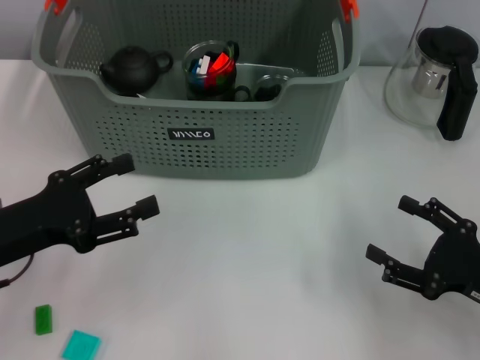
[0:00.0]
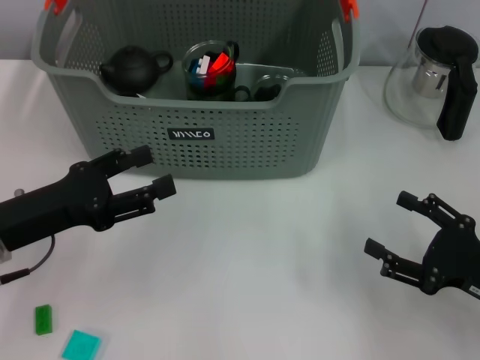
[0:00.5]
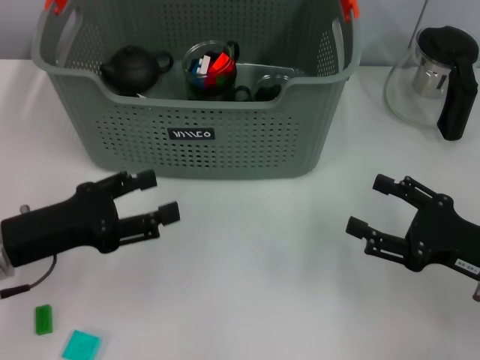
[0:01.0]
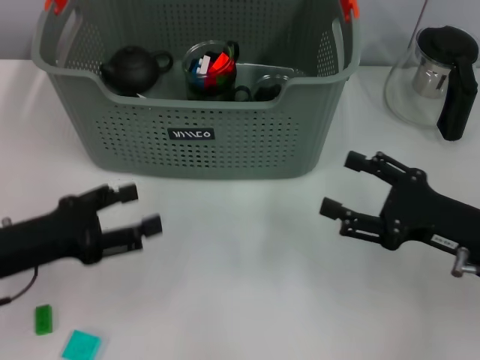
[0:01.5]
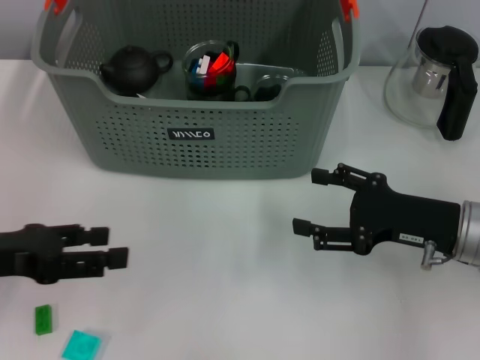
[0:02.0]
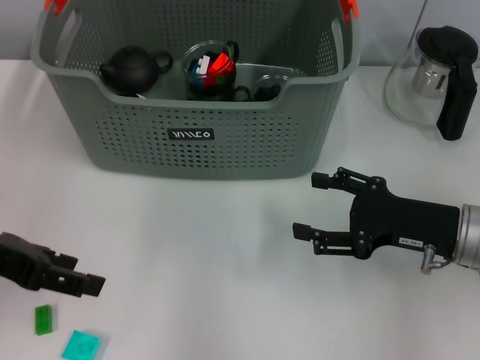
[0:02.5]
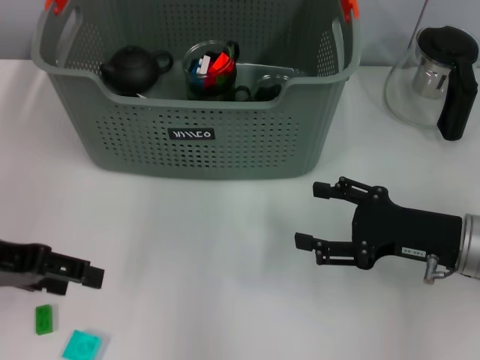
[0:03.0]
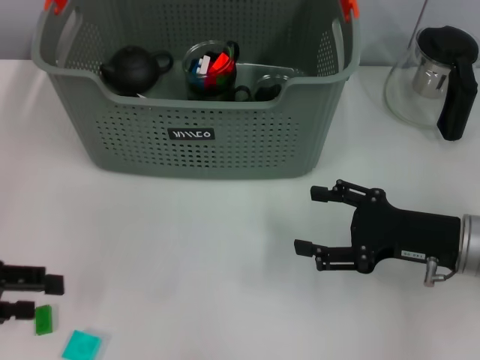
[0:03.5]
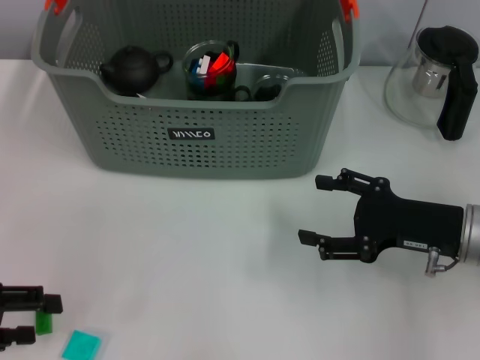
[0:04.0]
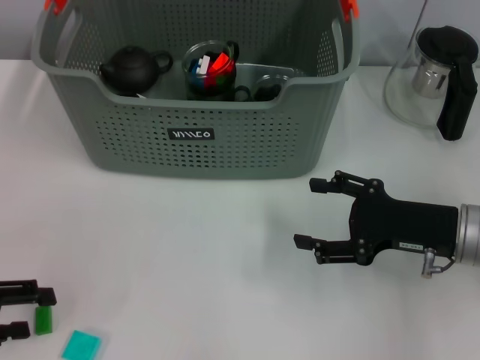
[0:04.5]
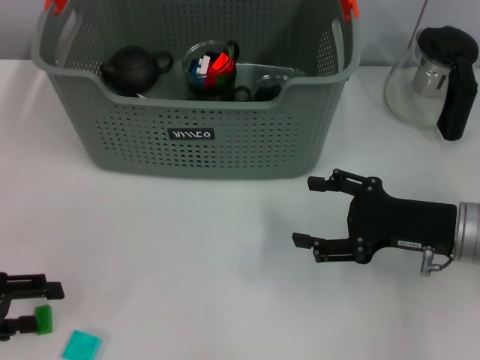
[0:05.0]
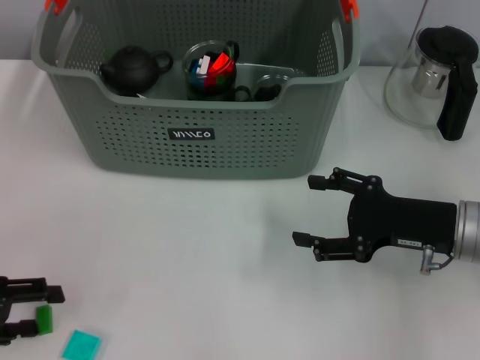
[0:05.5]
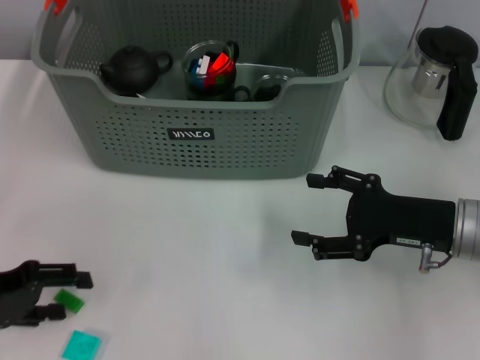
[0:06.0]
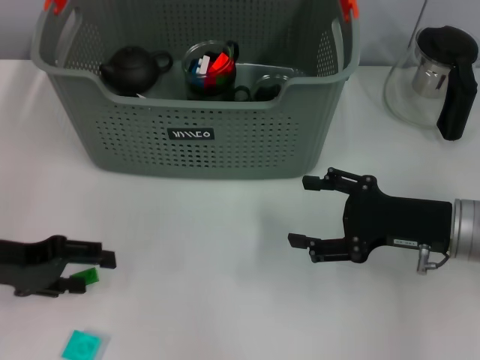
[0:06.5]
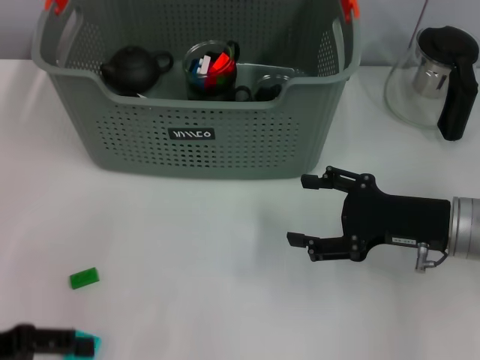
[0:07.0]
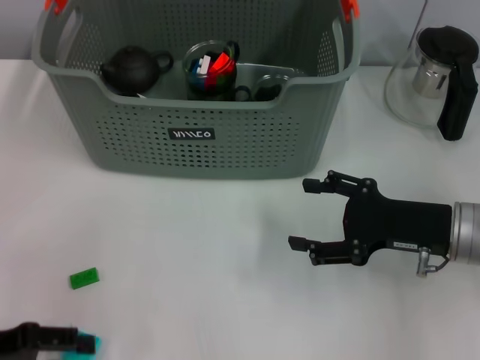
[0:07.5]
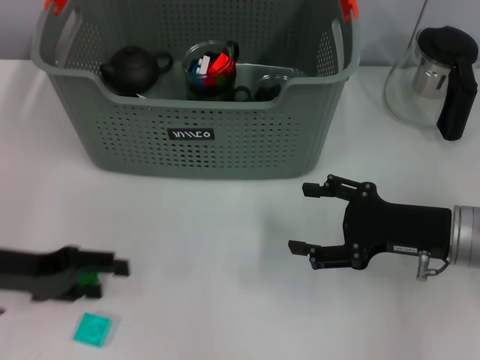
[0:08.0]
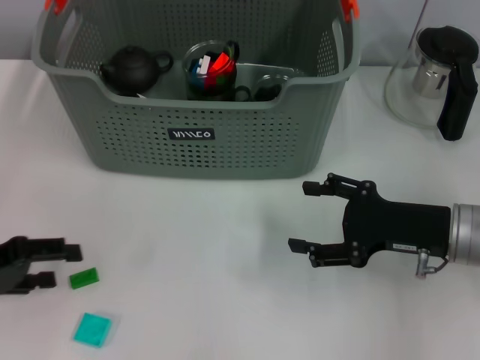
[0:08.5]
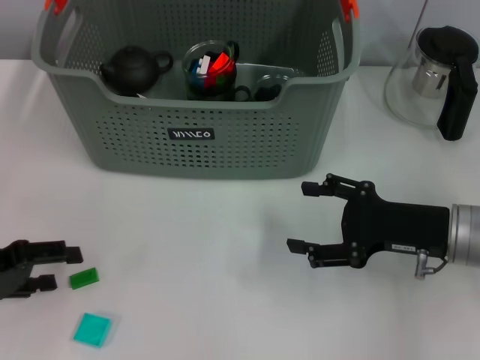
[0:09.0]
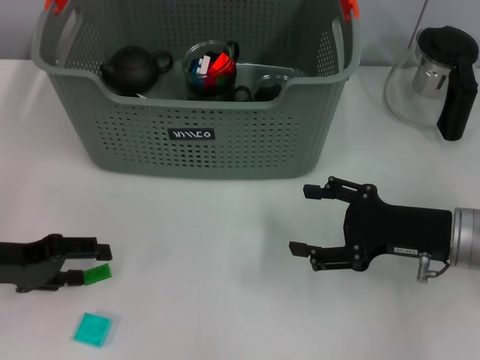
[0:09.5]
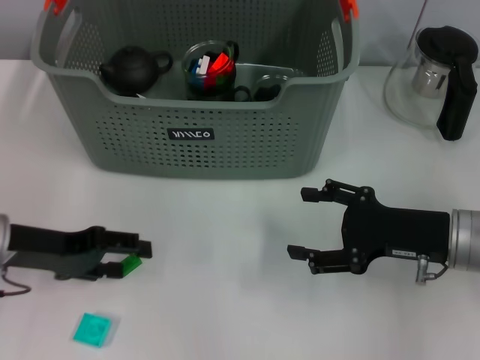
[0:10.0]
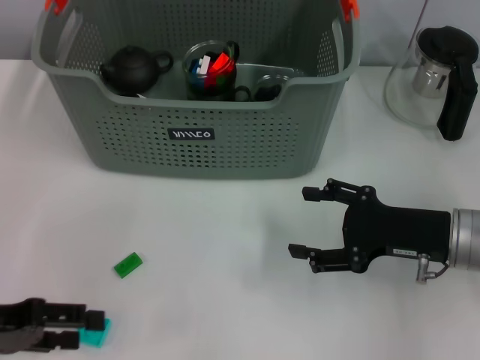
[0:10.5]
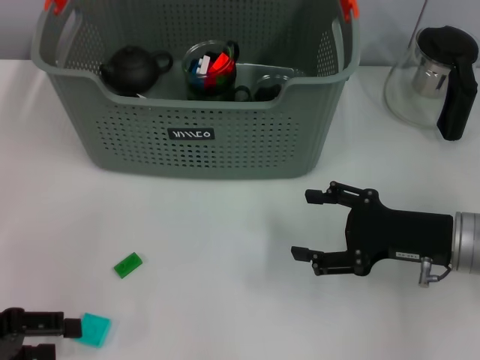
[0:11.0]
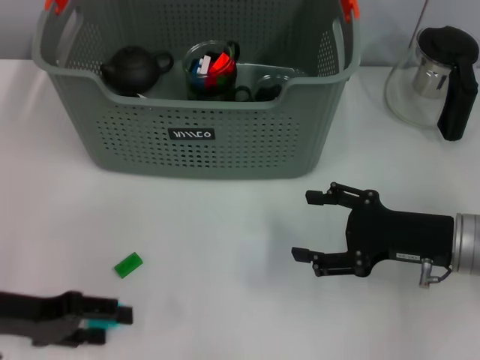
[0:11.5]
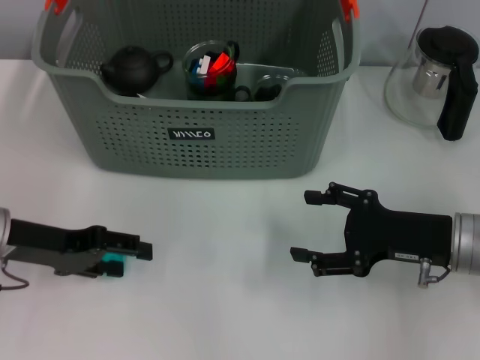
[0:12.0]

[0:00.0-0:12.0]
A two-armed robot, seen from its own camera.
Task of the whole recording: pick up the teacup on the table and place it into the storage bin, pick up the block on the table and place it into the storage bin.
0:00.0 to 0:02.0: The right gripper travels forward and to the left by about 10 cm.
0:02.0 to 0:04.0: The left gripper shifts by about 5 cm.
0:04.0 to 0:06.0: The grippers move only a little.
0:06.0 to 0:08.0: The grippers stay close to where they were, moving slightly.
0:08.0 to 0:10.0: The grippers stay close to where they were, moving slightly.
0:10.0 to 0:12.0: The left gripper goes backward and returns, approximately 10 cm each way.

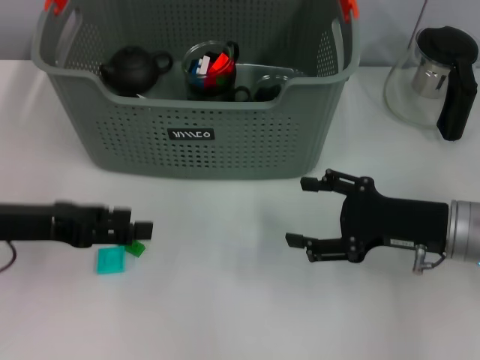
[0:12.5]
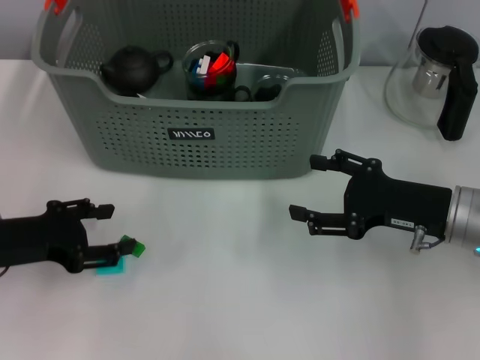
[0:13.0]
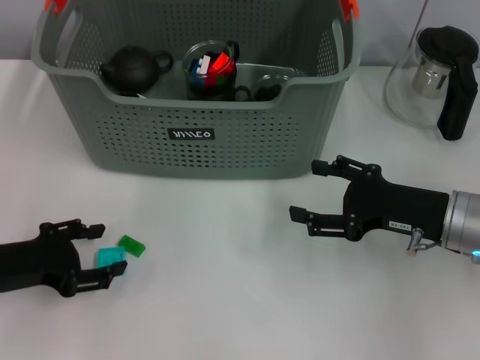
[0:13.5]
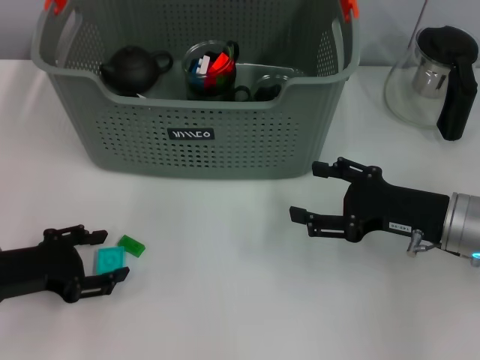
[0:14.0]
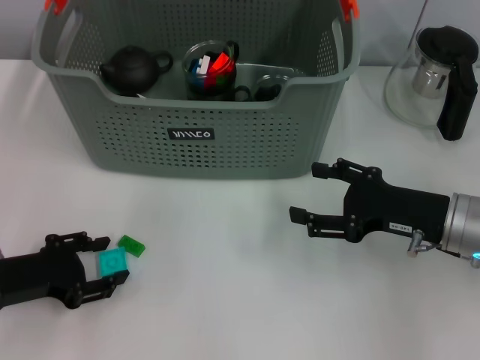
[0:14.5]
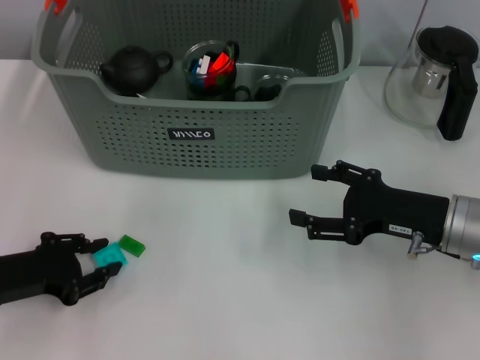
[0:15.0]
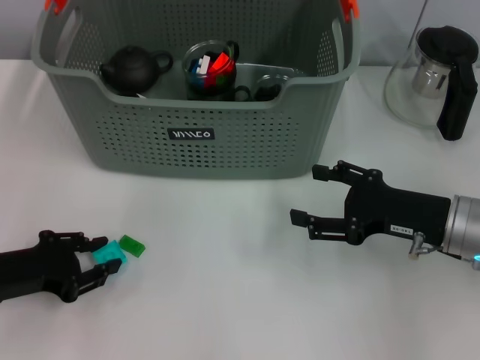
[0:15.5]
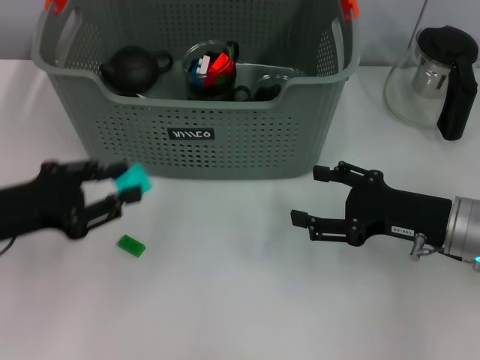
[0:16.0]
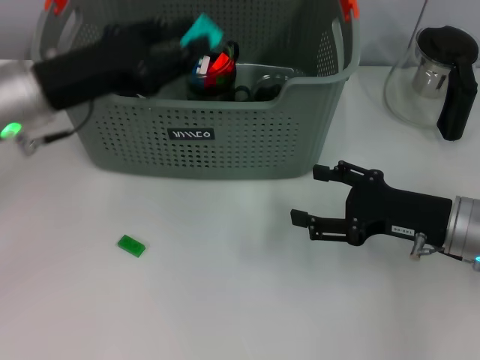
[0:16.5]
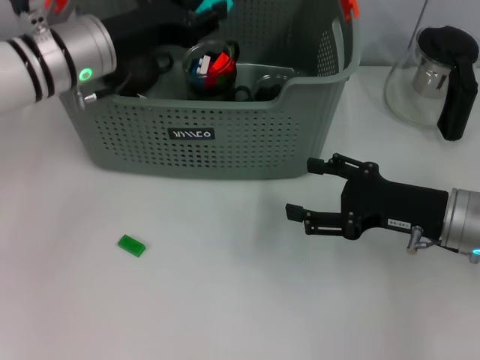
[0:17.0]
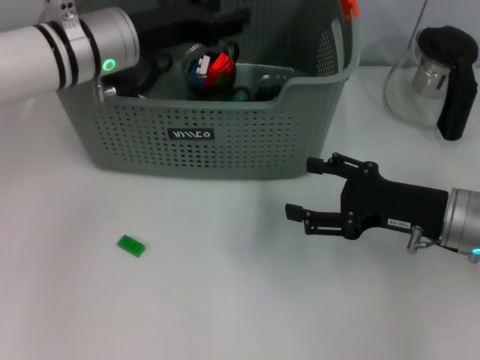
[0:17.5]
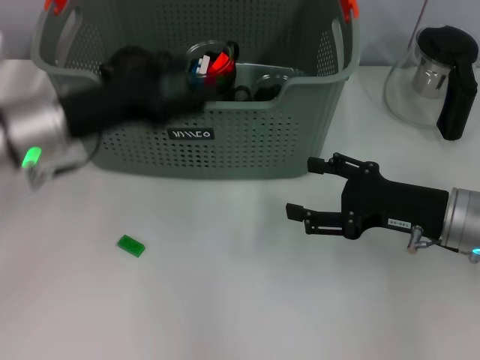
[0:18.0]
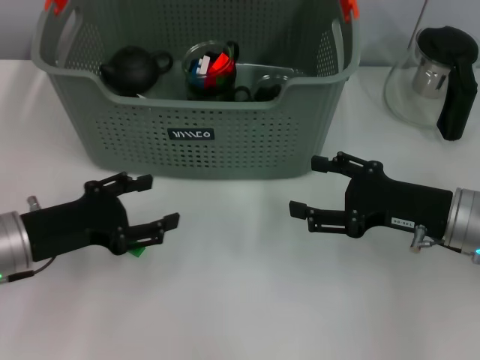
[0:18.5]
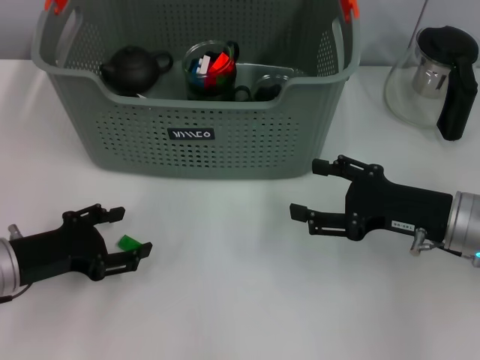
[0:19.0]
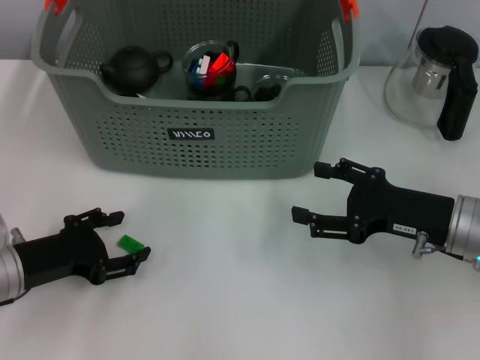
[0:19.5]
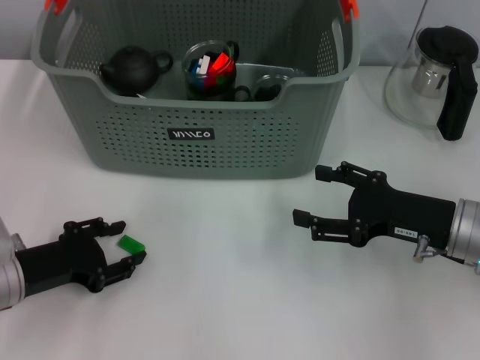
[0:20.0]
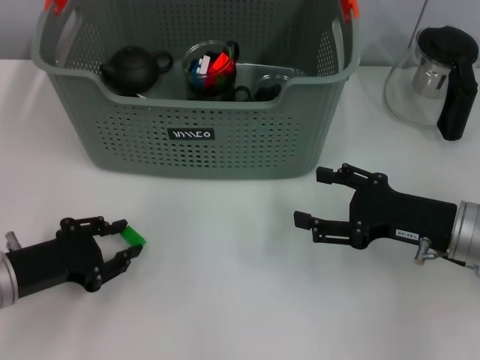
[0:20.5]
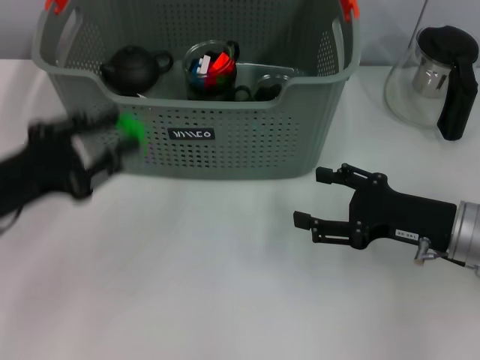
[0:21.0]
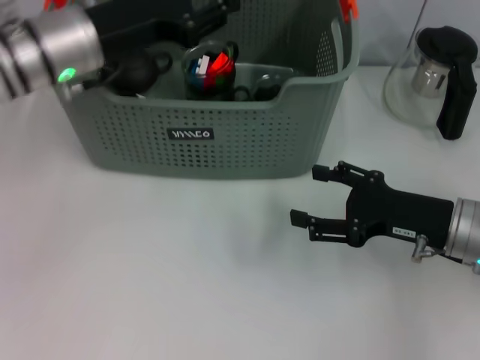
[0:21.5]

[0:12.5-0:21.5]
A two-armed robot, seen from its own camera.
Task of the whole recording: pick up the teacup on the table and place it into the storage bin, pick up the block on the table and place it into the storage bin.
Step, 0:12.5 to 0:15.0: Grasp the light blue block with left gripper.
Step, 0:15.5 to 0:17.5: Place the light blue block in the storage box with left gripper.
Step, 0:18.0 to 0:20.0: Grasp the green block with left gripper.
0:12.5 to 0:14.5: The left gripper is displaced downward by roughly 10 cm.
0:14.5 to 0:17.0: The left gripper goes about 25 cm forward, upward and to the right.
0:17.0 to 0:19.5: The left gripper moves backward, downward and to the left, roughly 20 cm, and opens up.
0:19.5 to 0:21.5: The left gripper travels upward, forward and to the right by some 20 cm, and closes.

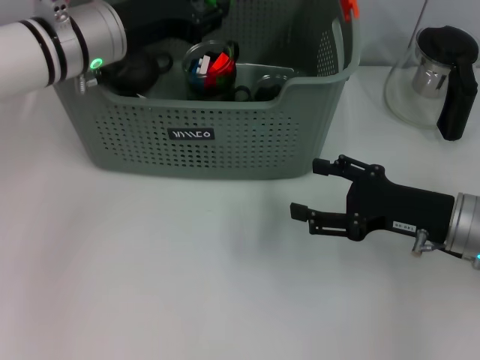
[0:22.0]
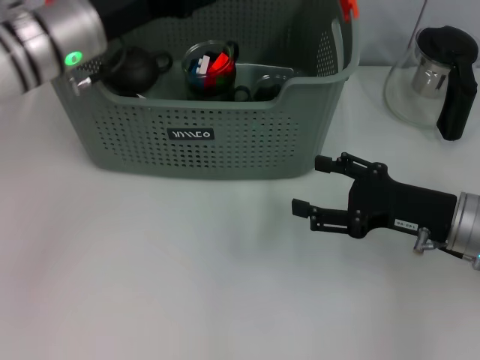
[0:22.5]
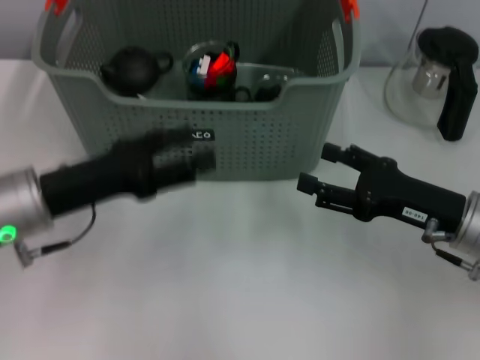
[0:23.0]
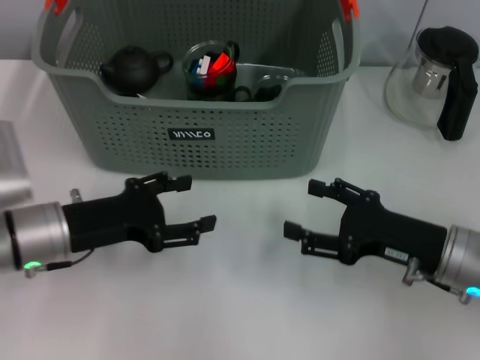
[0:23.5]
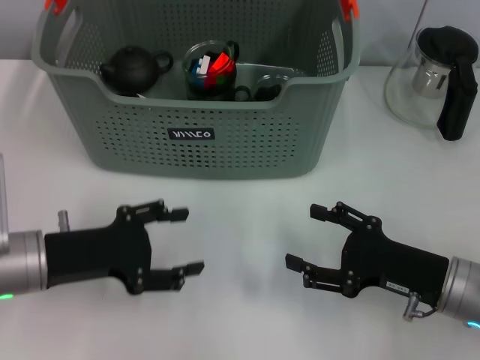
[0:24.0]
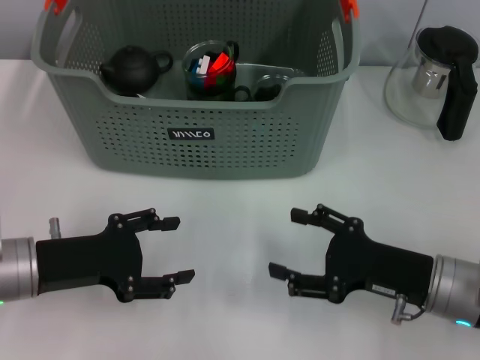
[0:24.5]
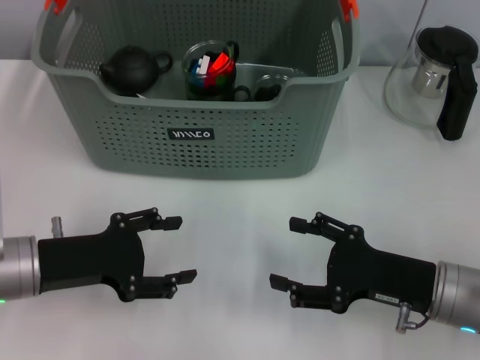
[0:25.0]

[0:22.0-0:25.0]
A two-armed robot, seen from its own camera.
Task of the whole recording: pick up the teacup on the table and place it into the storage bin, pick up the block on the table and place it into the storage bin.
0:22.0 to 0:23.5: The left gripper goes roughly 15 cm backward and downward, and opens its fingers.
